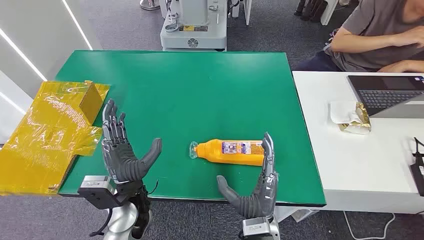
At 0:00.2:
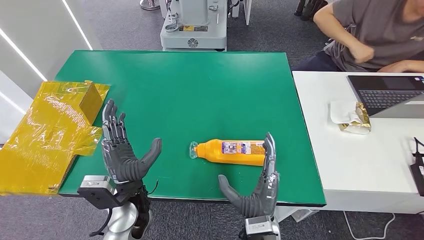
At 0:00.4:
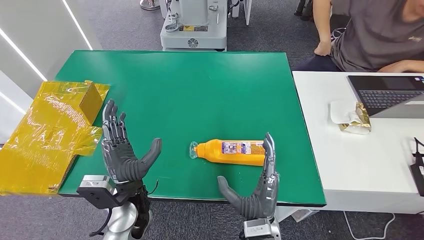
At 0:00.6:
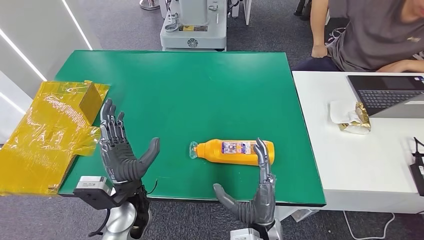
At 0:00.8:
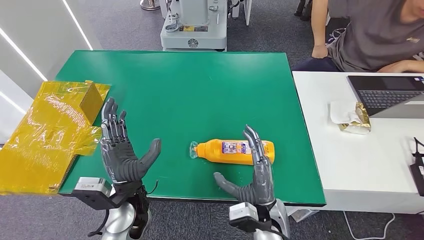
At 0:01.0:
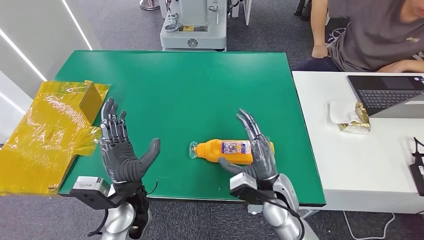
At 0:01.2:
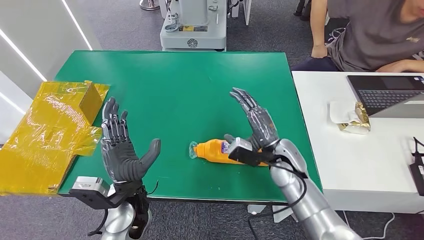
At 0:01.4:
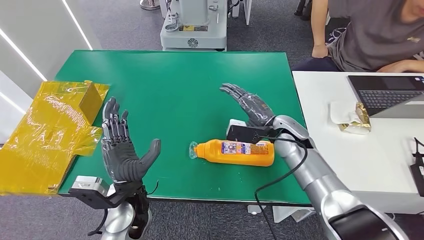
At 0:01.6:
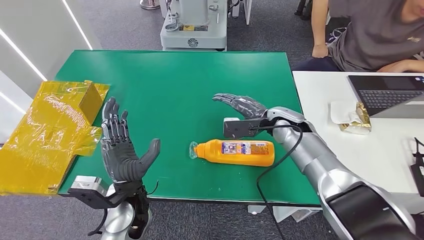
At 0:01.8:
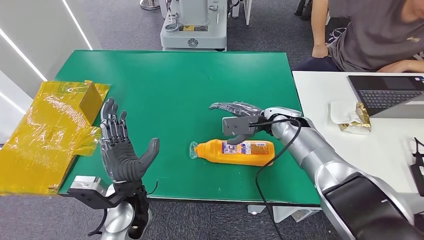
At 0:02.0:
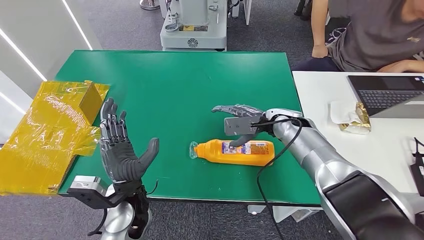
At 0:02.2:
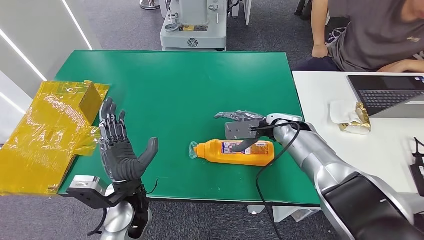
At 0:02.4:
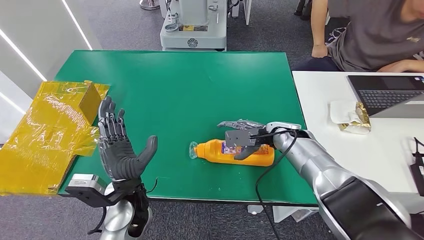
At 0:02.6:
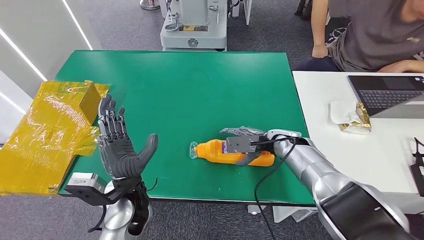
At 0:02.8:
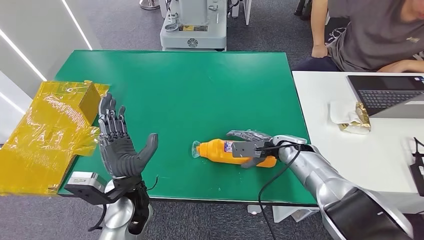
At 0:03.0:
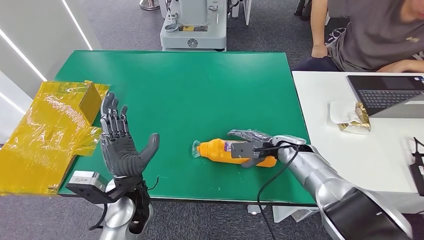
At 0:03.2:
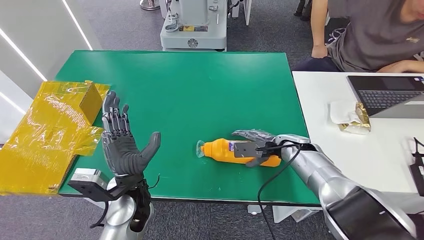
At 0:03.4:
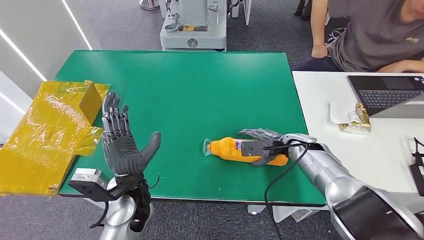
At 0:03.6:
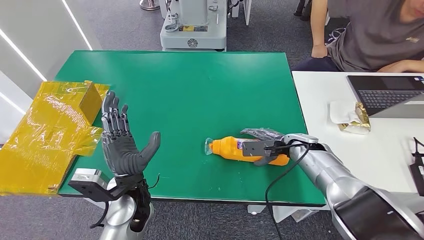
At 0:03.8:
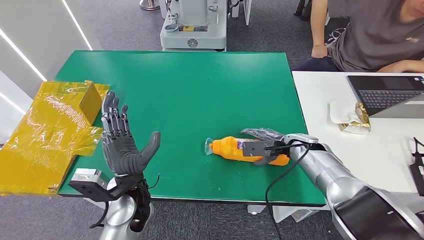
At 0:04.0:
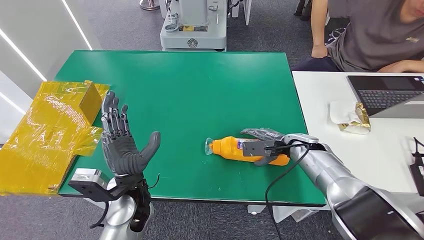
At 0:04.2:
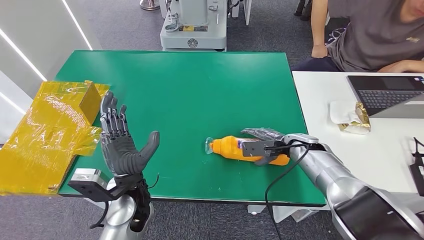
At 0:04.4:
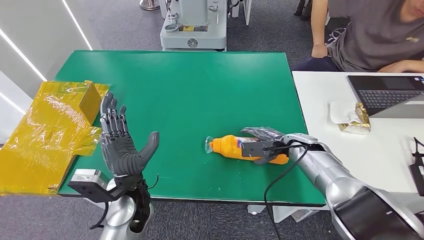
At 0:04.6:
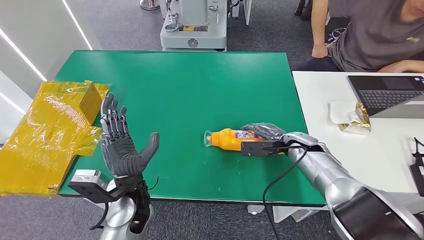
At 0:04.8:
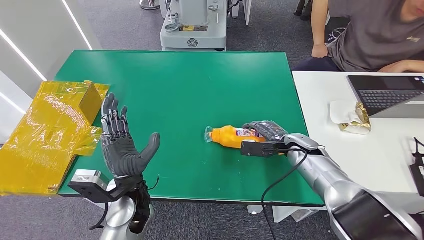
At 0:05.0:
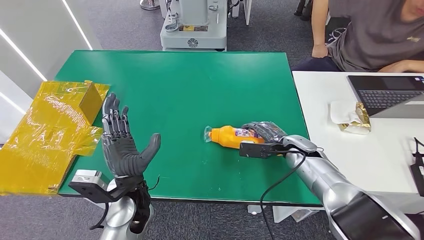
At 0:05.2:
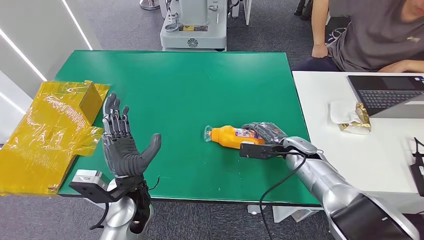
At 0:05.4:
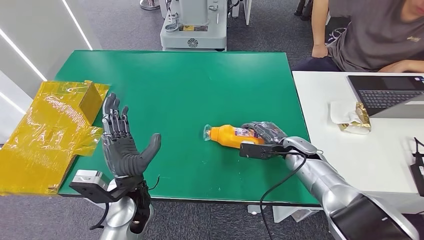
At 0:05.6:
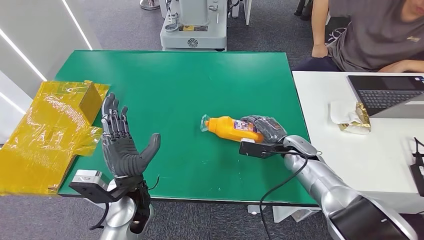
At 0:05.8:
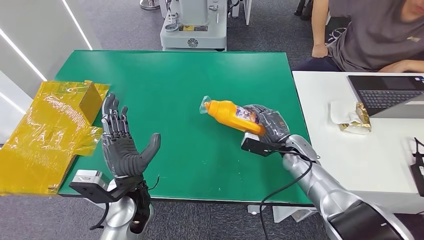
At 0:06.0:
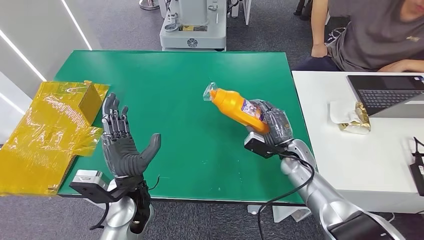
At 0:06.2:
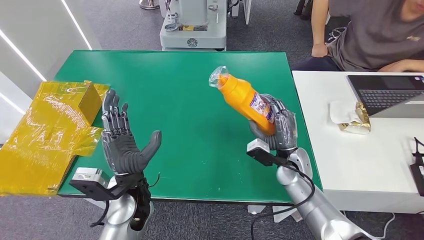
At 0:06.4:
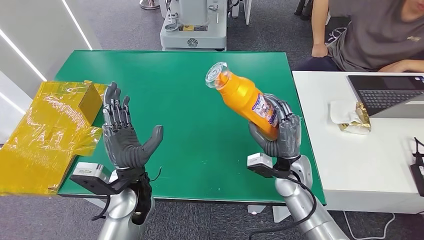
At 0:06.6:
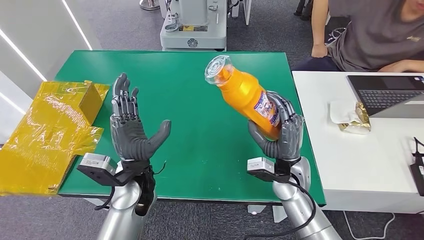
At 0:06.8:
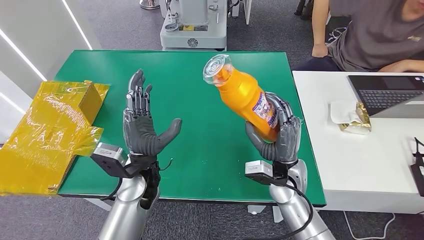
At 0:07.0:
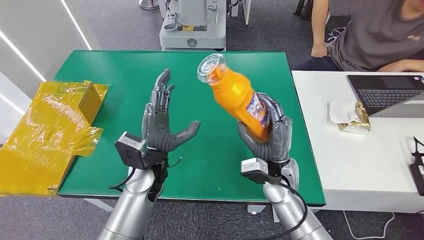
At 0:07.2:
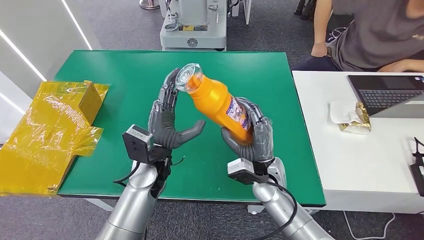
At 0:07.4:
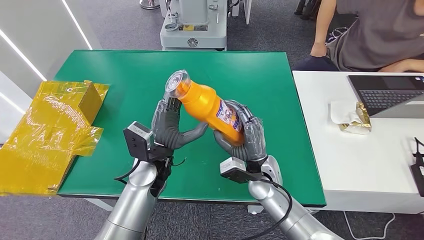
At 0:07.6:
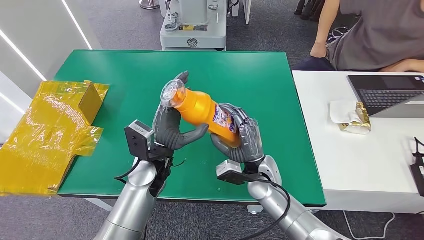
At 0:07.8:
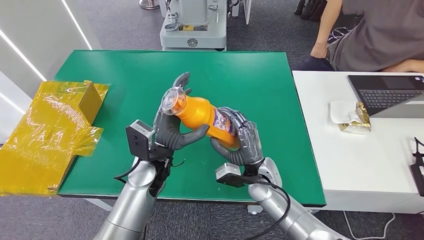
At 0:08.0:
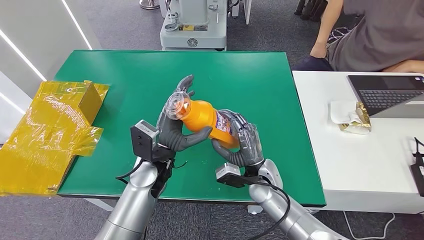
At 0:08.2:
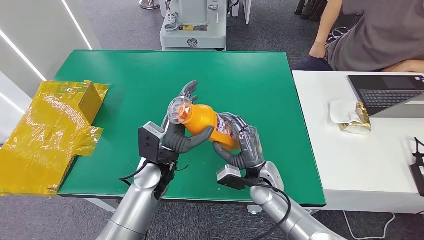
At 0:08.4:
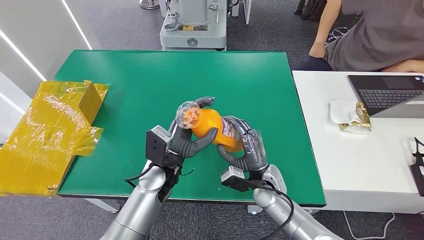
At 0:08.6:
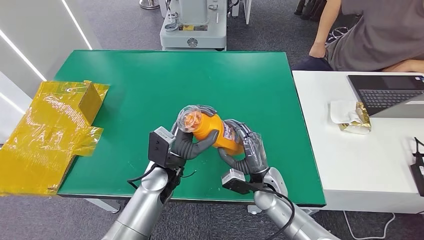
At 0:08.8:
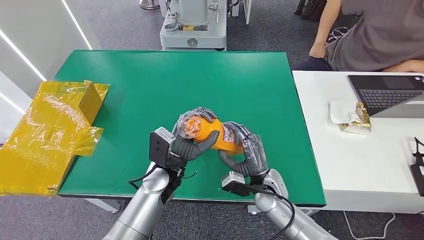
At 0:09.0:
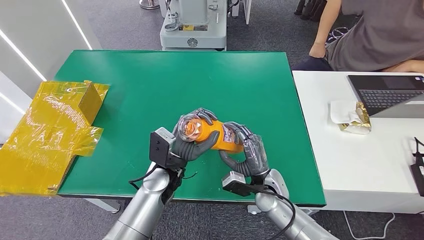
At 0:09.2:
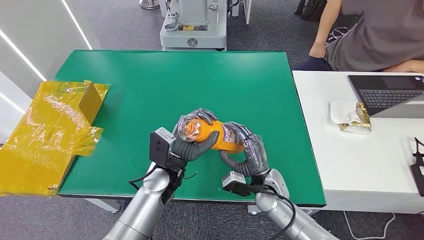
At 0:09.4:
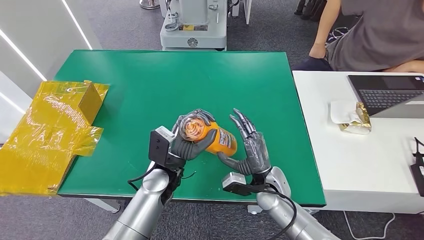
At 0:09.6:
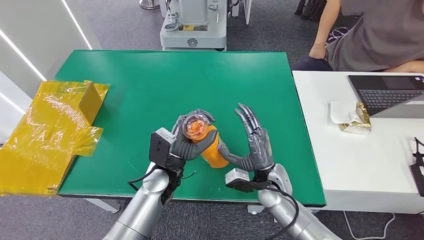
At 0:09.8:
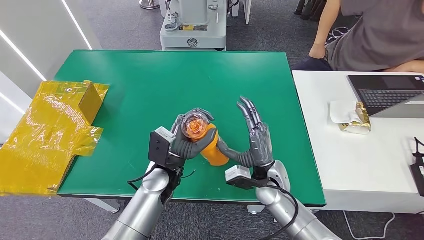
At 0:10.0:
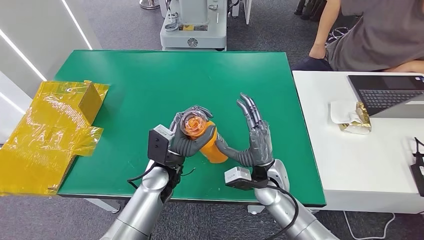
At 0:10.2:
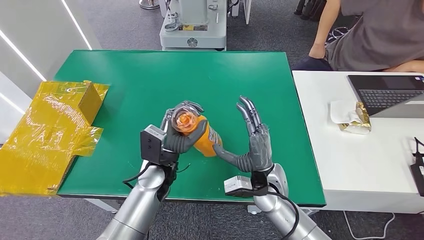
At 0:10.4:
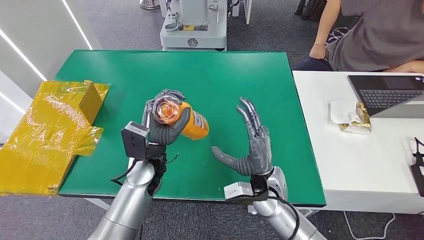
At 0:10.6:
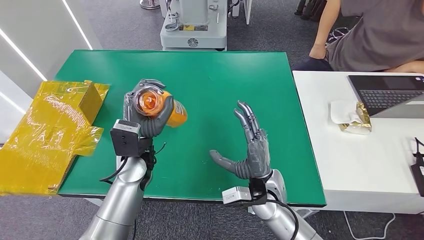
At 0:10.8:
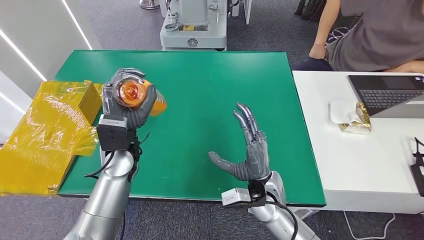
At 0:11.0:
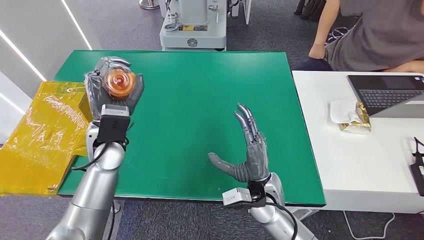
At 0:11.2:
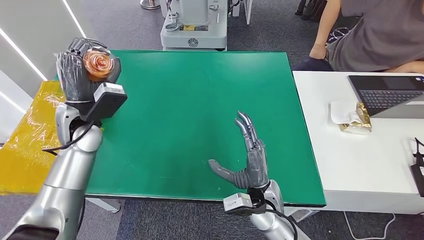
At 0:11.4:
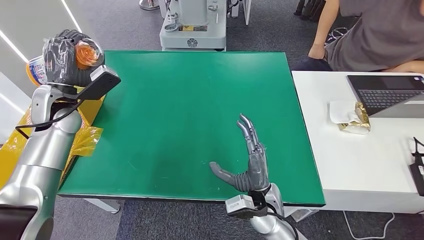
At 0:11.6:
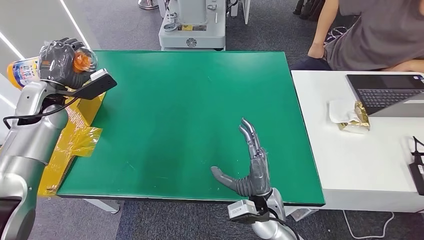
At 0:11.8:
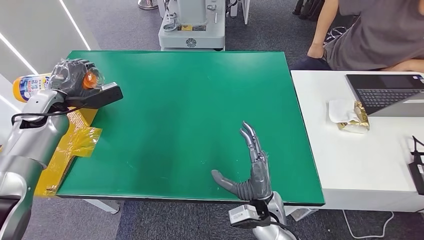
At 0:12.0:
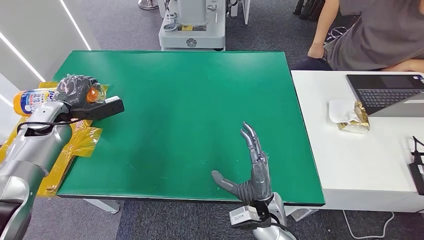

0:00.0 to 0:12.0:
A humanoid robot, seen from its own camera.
Step, 0:00.0 to 0:06.8: Pick up the bottle from the table.
0:01.6 to 0:03.0: The right hand moves downward, approximately 10 cm.
0:03.0 to 0:04.4: There are only small adjustments of the hands.
0:07.6 to 0:09.0: The right hand shifts by approximately 5 cm.
0:09.0 to 0:10.4: The right hand is displaced upward by approximately 5 cm.

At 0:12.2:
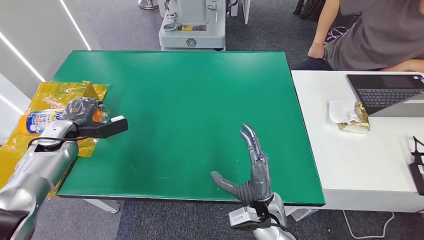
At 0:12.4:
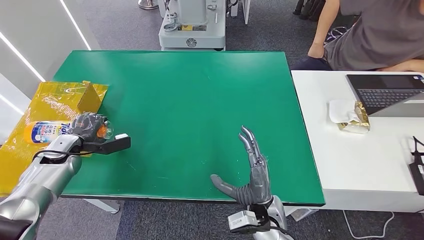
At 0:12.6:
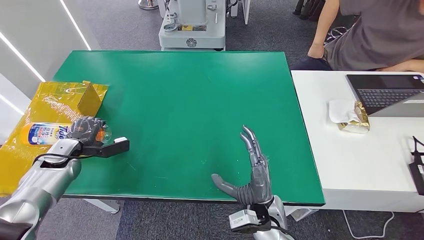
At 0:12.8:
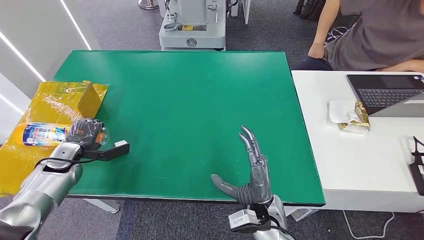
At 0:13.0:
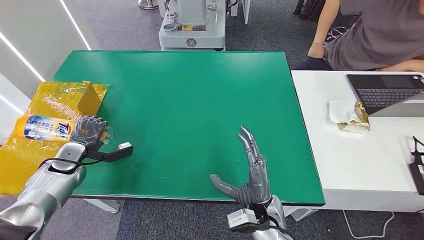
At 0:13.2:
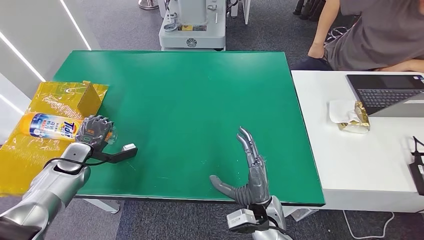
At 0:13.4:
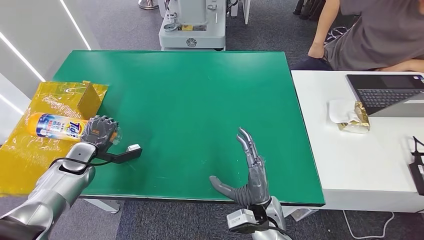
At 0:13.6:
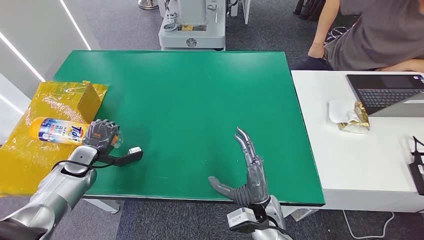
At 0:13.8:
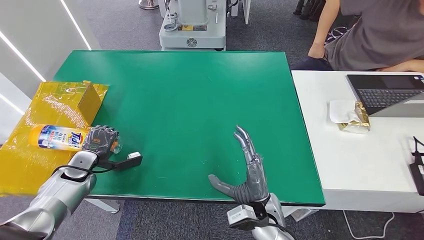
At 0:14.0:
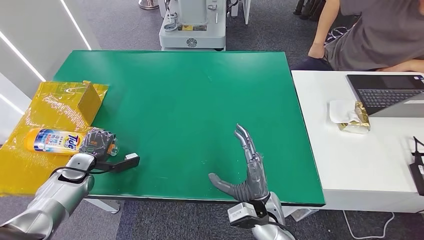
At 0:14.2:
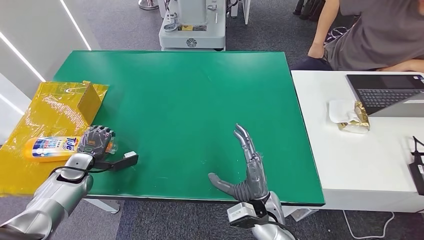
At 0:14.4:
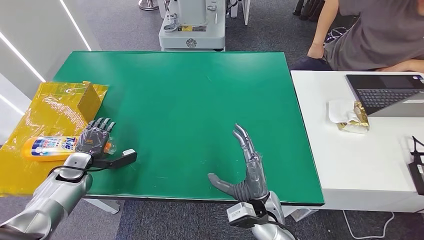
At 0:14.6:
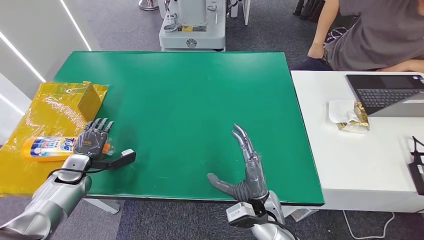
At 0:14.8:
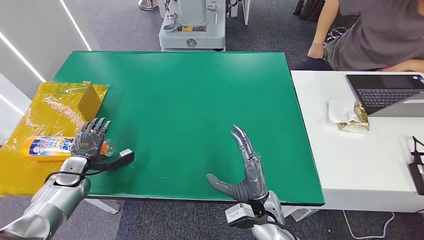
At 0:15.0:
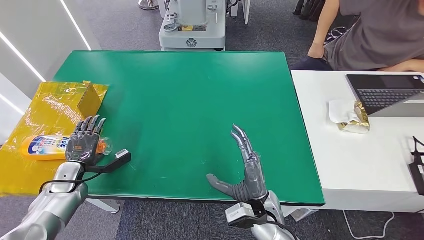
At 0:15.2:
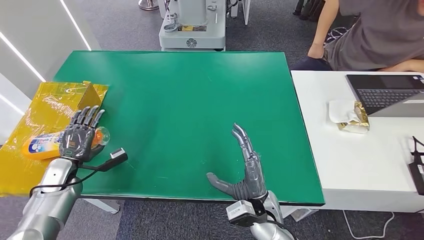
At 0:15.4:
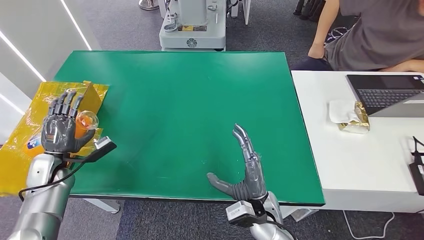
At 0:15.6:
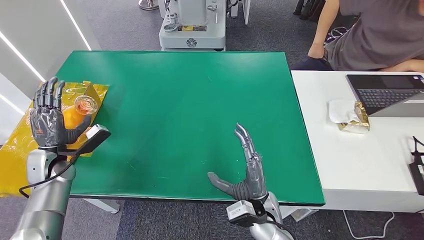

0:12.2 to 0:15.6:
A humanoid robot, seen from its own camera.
Step, 0:12.2 to 0:15.6: Turn the bottle to the front side.
0:12.2 to 0:13.8: The left hand heads downward and backward, covering approximately 10 cm.
0:13.8 to 0:15.6: The left hand moves upward, approximately 5 cm.

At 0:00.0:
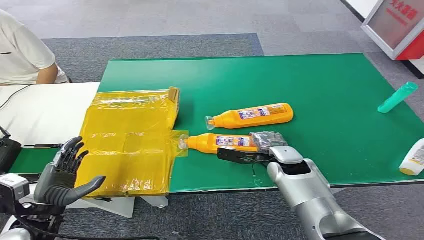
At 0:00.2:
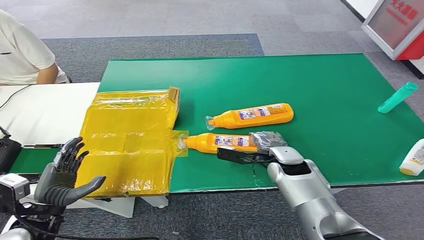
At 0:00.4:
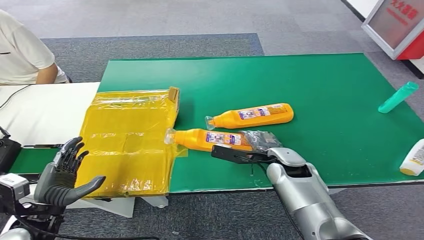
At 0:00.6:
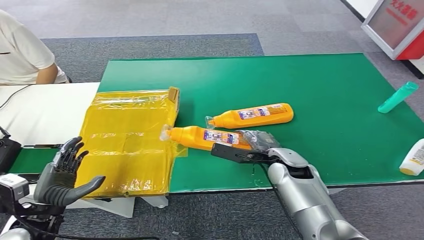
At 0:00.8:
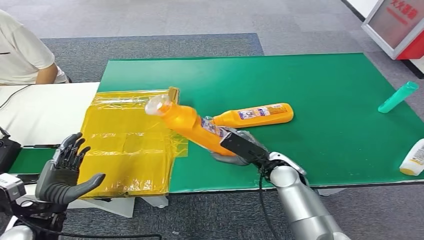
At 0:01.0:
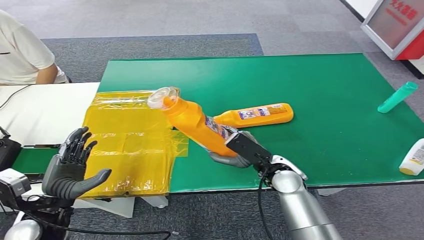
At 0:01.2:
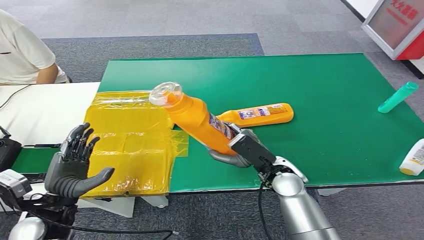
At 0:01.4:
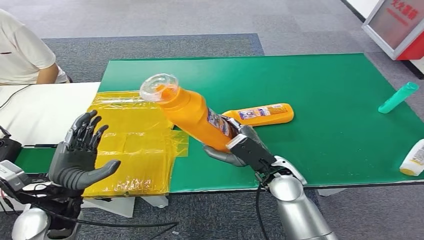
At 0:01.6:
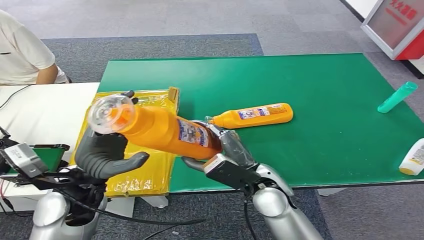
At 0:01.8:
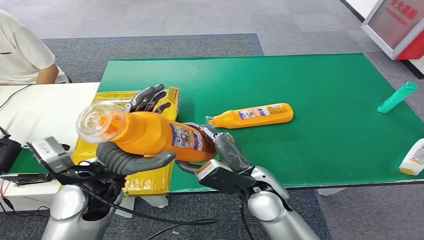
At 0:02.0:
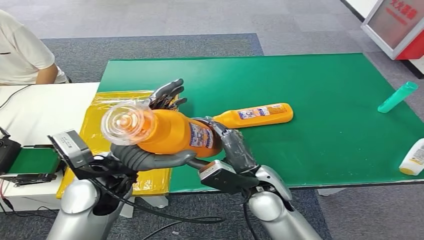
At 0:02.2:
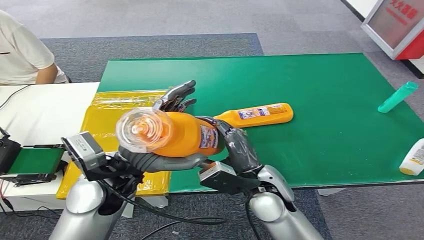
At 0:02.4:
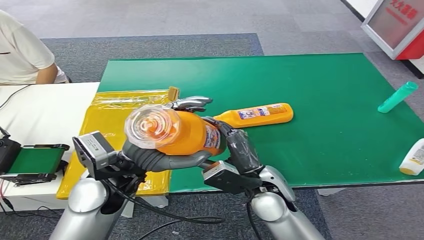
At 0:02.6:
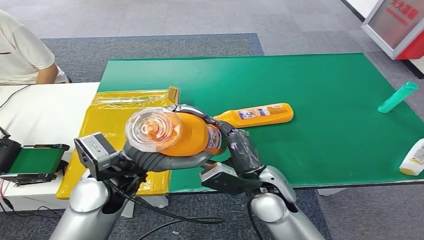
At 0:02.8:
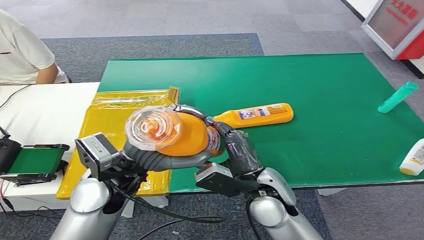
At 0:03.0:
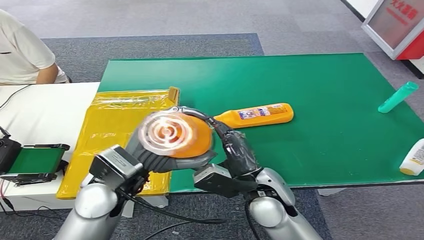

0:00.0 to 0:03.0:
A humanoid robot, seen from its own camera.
Step, 0:00.0 to 0:01.2: Pick up the bottle from the table.
0:01.6 to 0:03.0: The left hand moves to the right, roughly 10 cm.
